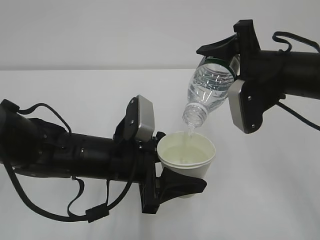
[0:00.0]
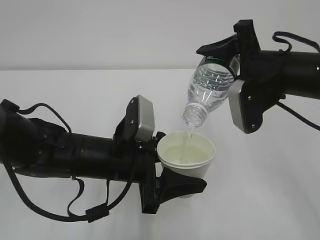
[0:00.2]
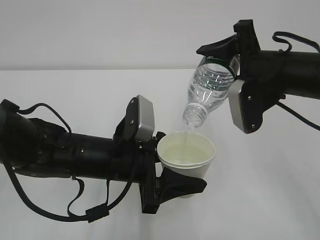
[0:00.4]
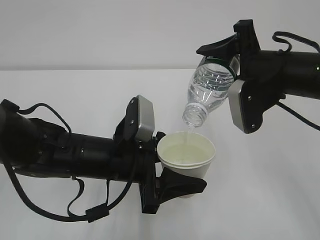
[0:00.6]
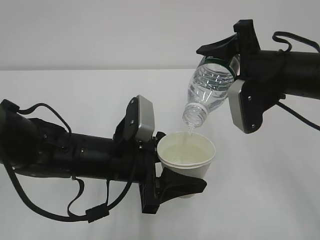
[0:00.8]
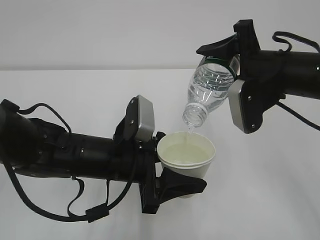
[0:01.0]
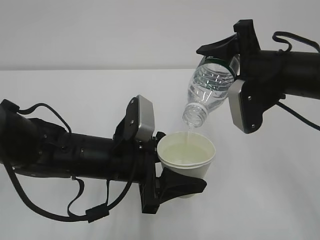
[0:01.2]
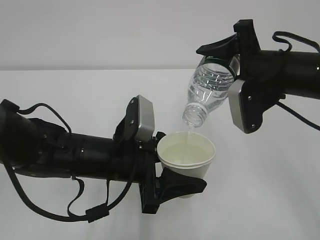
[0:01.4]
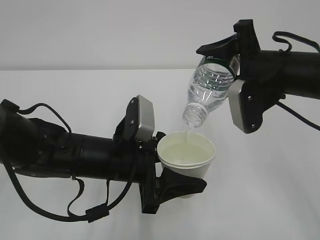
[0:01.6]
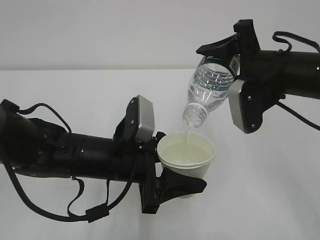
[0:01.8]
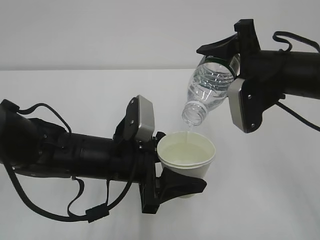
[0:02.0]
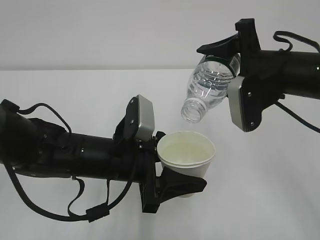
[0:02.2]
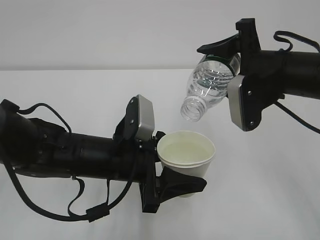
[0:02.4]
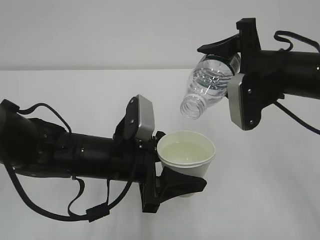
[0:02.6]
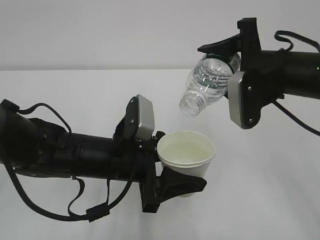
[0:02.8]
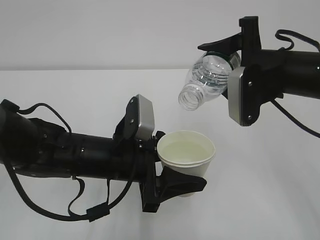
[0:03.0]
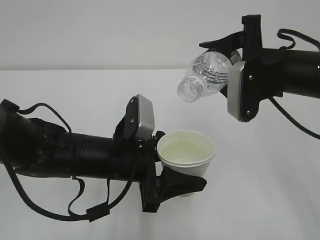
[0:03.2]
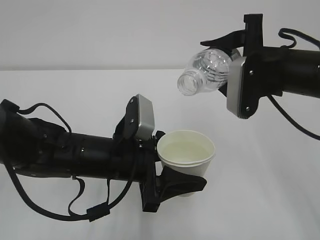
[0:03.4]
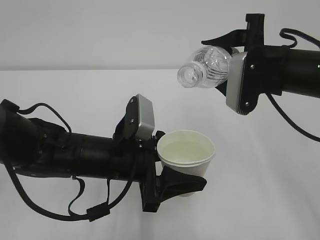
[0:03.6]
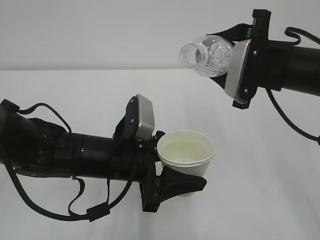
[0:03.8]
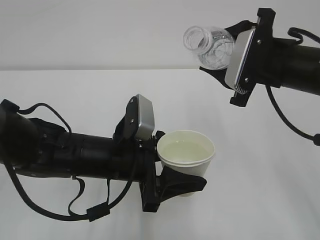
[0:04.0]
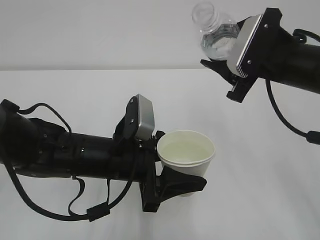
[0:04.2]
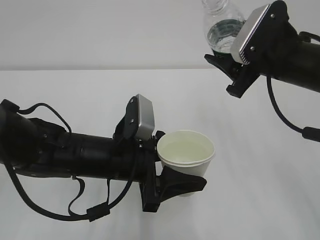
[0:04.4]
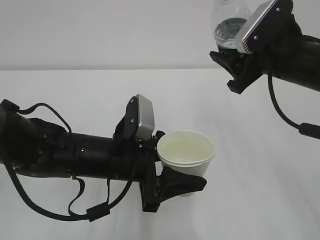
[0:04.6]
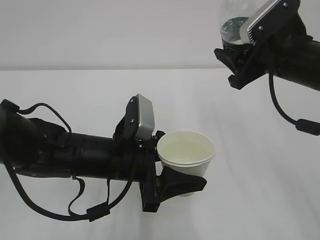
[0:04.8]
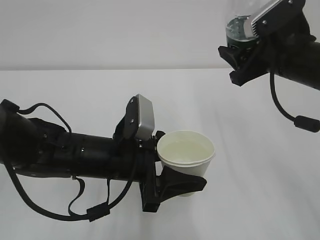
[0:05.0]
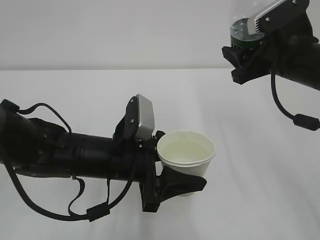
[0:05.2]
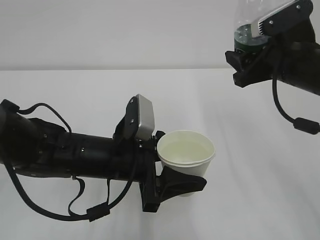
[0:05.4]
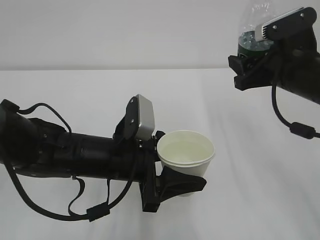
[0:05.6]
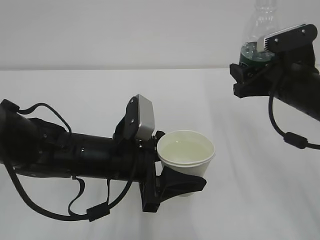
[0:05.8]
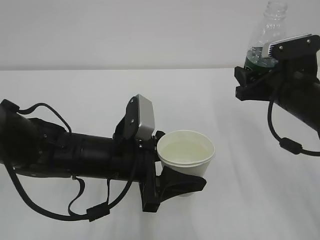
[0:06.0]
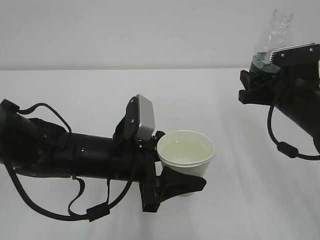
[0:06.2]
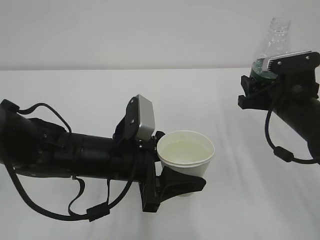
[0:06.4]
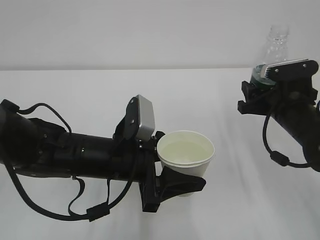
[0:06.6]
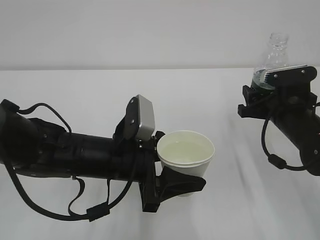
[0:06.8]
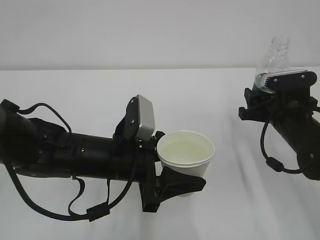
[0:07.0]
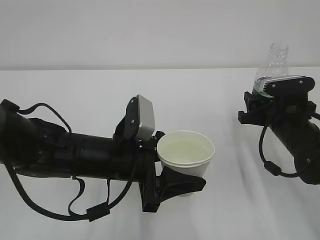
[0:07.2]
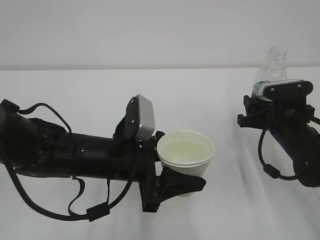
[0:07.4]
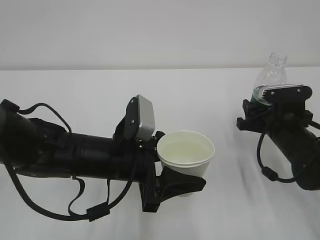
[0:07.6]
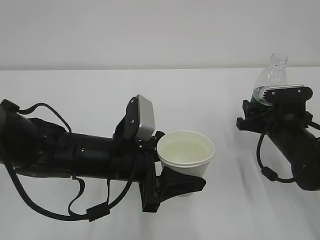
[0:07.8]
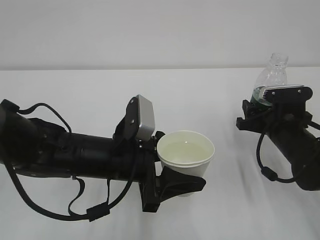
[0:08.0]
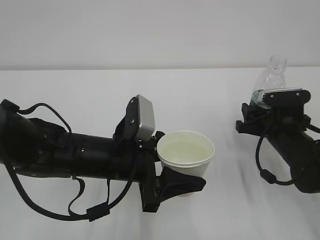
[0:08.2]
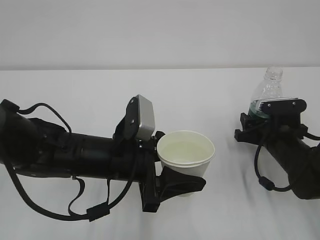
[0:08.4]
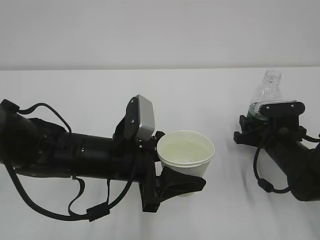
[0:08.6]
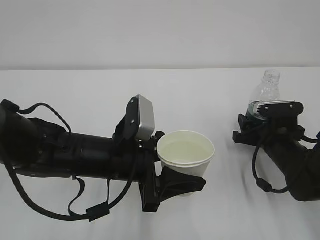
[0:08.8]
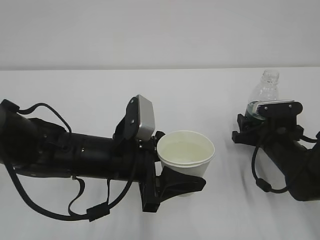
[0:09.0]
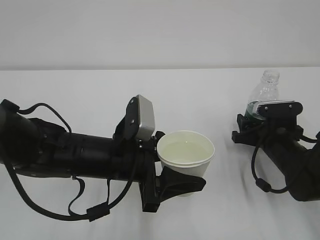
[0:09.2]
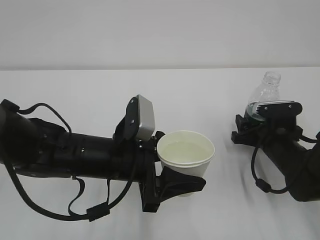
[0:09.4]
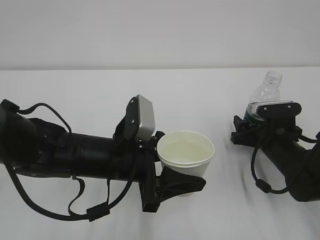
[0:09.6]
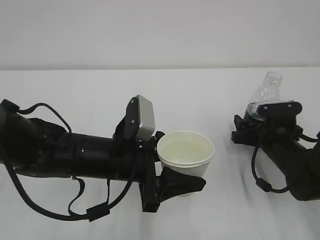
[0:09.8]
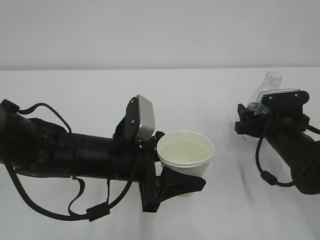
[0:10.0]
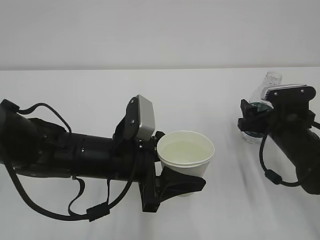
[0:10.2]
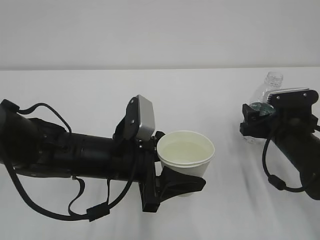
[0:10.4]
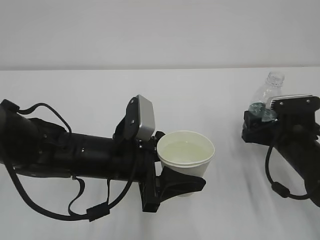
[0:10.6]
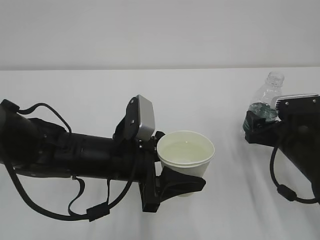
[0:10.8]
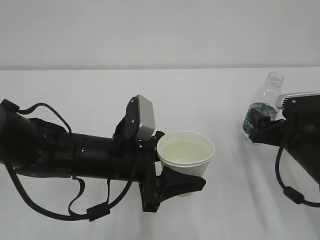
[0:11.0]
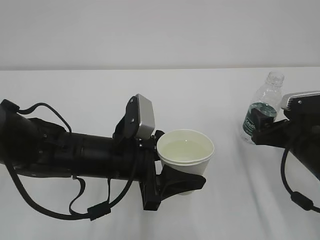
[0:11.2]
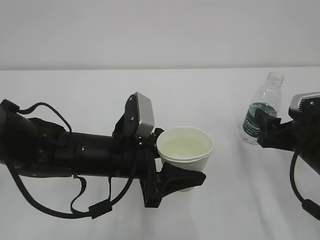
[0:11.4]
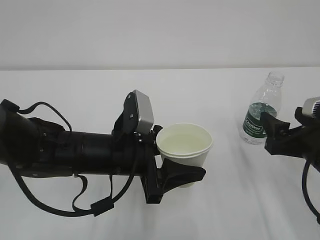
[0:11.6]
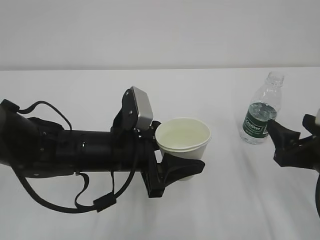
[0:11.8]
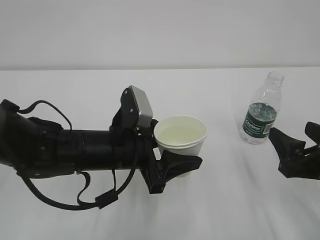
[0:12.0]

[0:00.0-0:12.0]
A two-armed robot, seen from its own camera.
0:00.0 to 0:01.6: The two grippers keep their place.
0:01.6 to 0:03.0: The grippers move only a little.
0:04.4 to 0:06.0: The right gripper heads downward, covering about 5 cm.
0:06.0 to 0:07.6: The right gripper moves downward, some 10 cm.
0:07.6 to 0:09.0: There are only small adjustments of the grippers.
0:09.0 to 0:10.4: The right gripper opens up.
0:10.4 to 0:12.0: The right gripper moves backward and upward, roughly 15 cm.

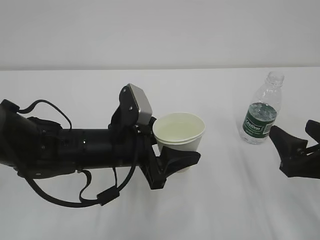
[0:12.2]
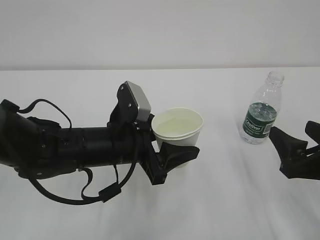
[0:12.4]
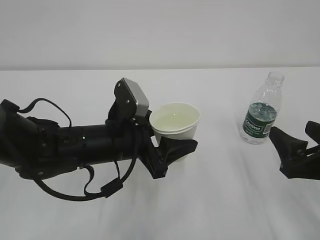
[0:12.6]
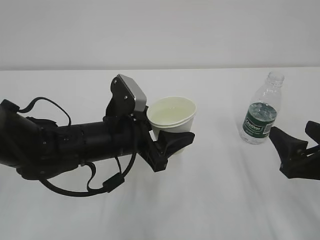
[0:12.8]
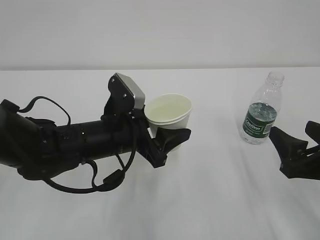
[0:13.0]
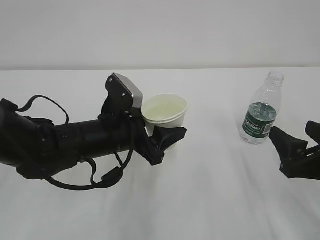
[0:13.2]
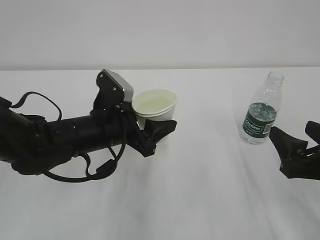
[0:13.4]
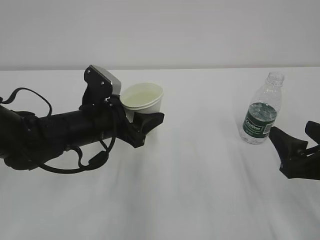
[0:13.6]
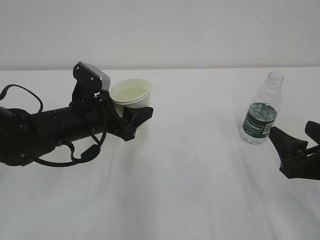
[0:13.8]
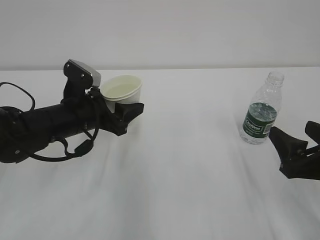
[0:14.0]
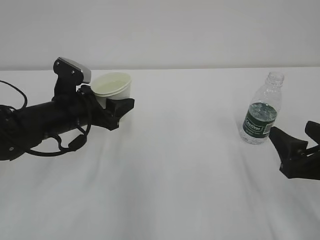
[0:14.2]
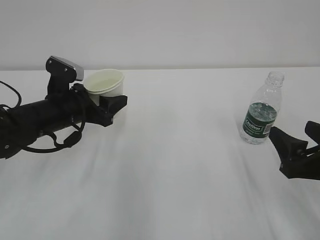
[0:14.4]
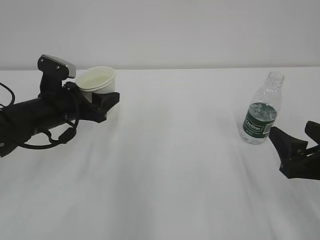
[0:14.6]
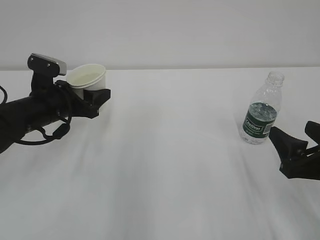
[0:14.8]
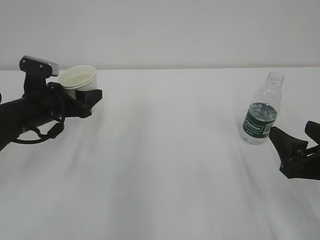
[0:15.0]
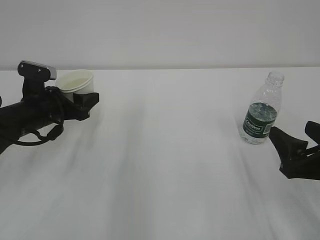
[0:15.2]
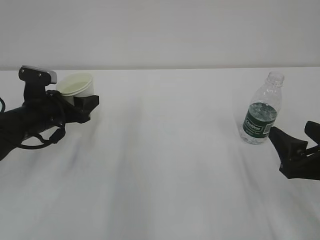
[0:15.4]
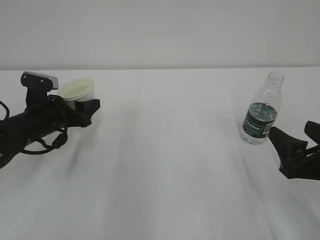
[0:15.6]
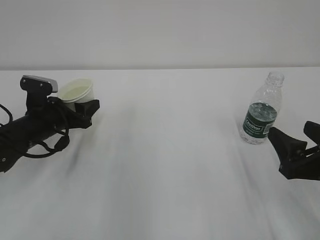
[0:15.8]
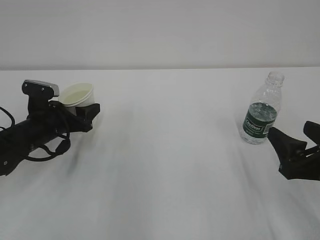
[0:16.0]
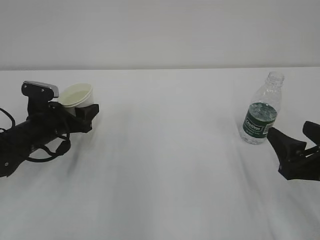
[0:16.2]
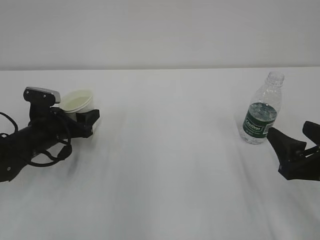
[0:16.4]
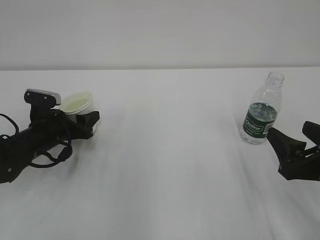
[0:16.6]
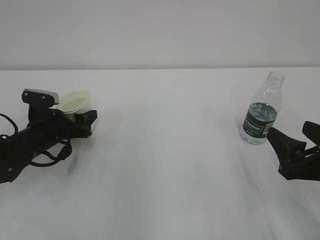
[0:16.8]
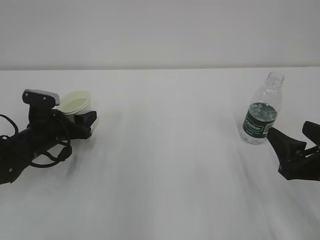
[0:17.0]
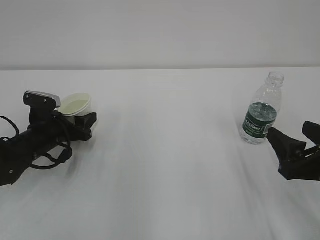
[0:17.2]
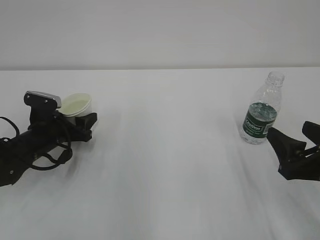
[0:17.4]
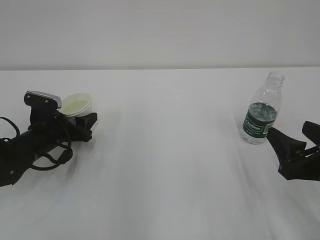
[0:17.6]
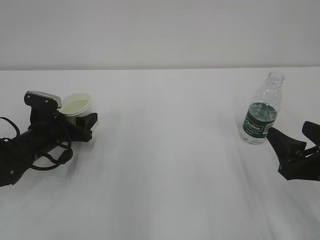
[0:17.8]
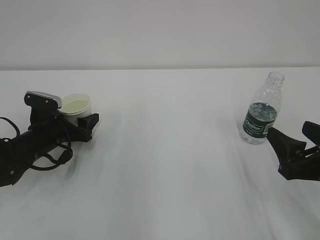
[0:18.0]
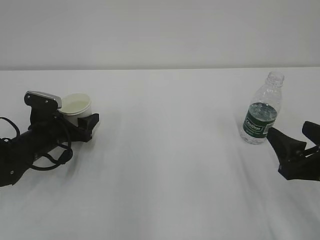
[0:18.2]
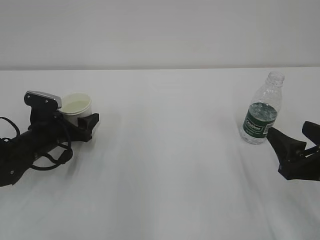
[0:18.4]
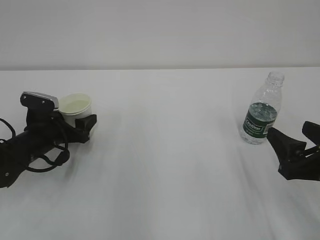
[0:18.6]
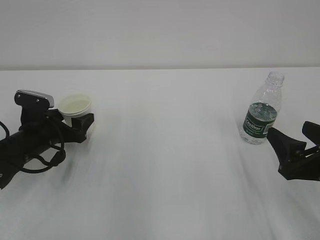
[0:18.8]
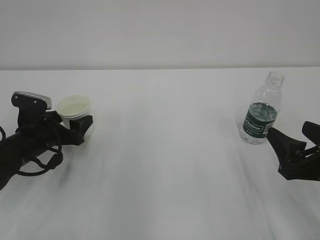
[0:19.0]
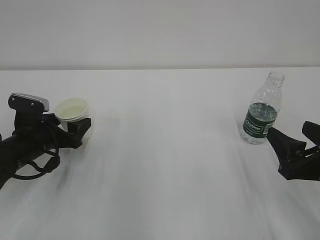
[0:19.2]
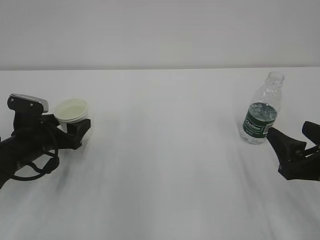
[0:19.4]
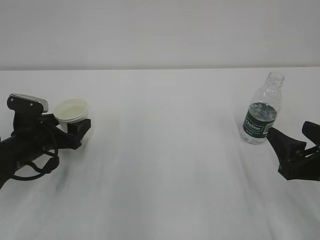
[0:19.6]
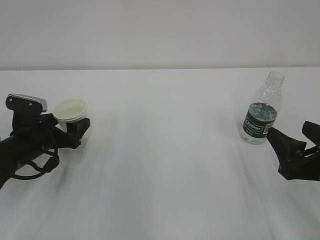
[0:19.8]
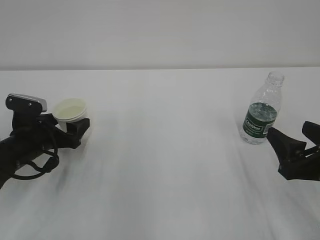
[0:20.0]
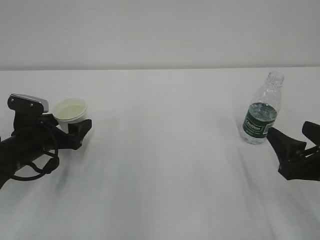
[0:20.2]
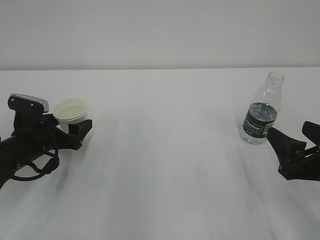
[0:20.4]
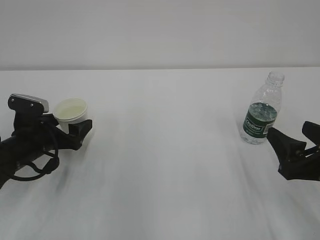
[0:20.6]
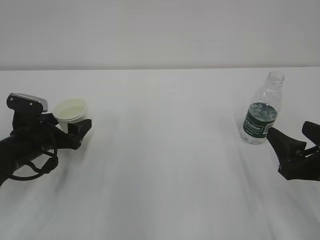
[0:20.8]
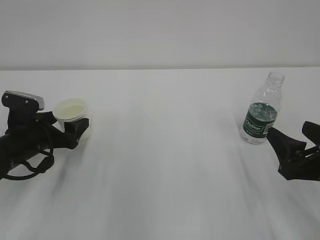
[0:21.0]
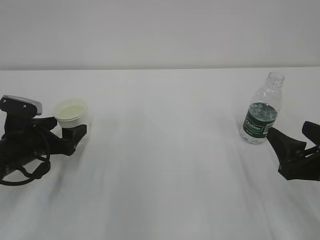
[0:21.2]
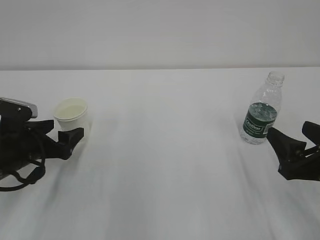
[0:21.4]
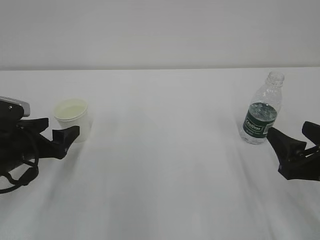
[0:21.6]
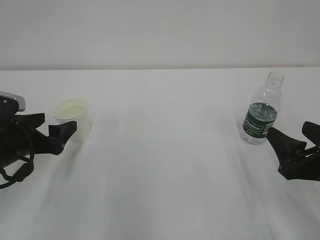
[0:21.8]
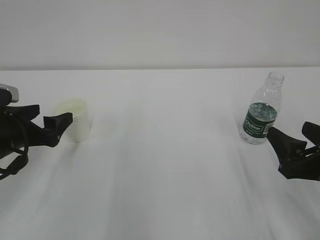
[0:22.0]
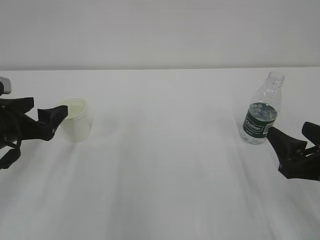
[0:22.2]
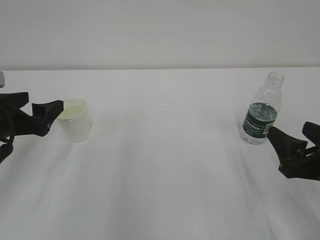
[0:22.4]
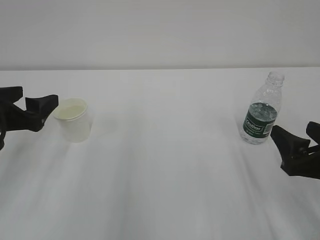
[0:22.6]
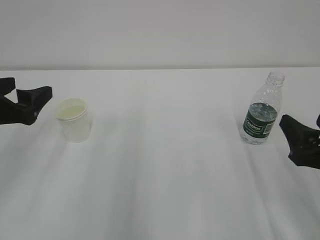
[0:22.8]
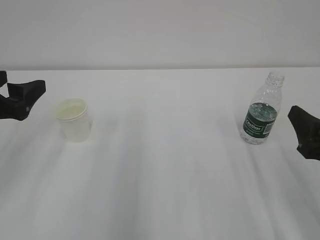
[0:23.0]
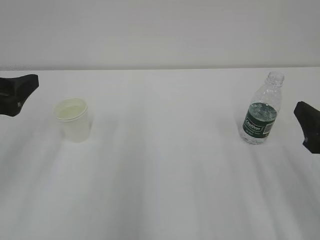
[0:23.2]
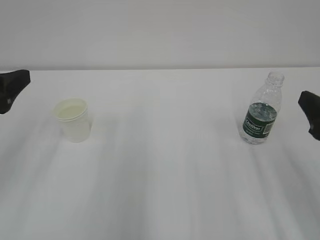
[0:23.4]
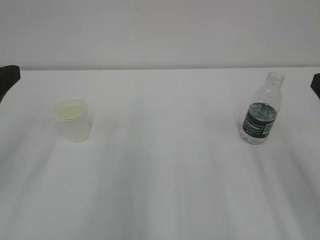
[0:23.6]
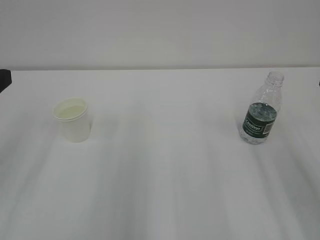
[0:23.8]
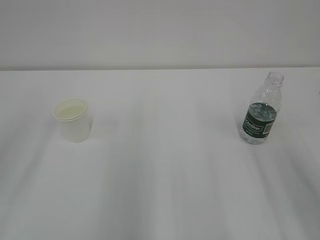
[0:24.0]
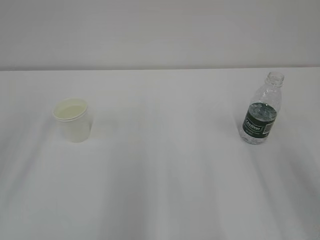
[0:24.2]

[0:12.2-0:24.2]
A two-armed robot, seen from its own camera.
0:12.2 to 0:13.8: The left gripper is displaced to the left and forward by approximately 10 cm.
0:13.8 to 0:15.2: The left gripper moves to the left, some 10 cm.
0:15.2 to 0:16.6: The left gripper shifts about 5 cm downward.
0:16.6 to 0:18.2: The left gripper opens its fingers.
0:18.2 to 0:19.8: The grippers make only small movements.
0:19.8 to 0:21.2: The grippers move only a little.
0:21.2 to 0:22.6: The left gripper shifts some 10 cm upward.
0:22.6 to 0:24.2: The left gripper heads upward and backward, covering some 15 cm. Meanwhile the right gripper travels upward by some 15 cm.
